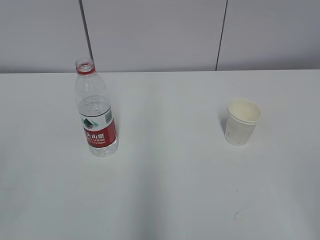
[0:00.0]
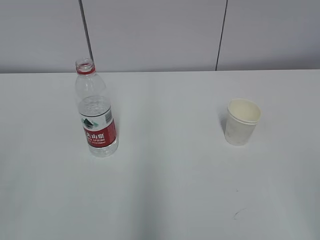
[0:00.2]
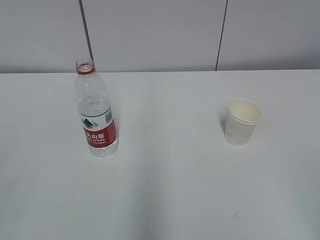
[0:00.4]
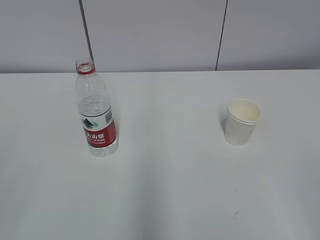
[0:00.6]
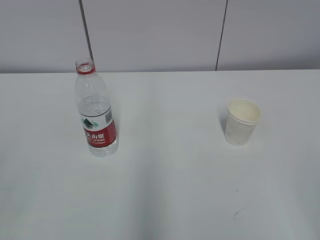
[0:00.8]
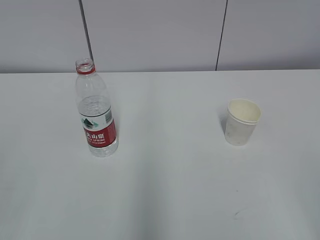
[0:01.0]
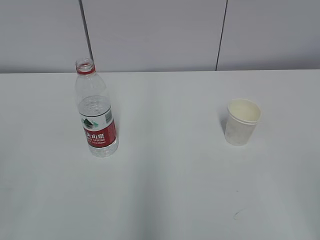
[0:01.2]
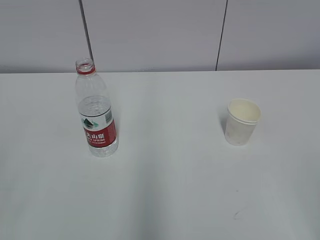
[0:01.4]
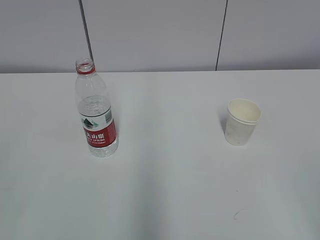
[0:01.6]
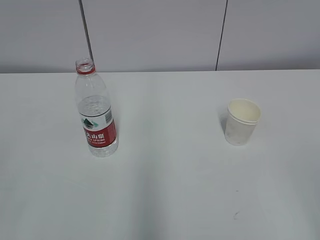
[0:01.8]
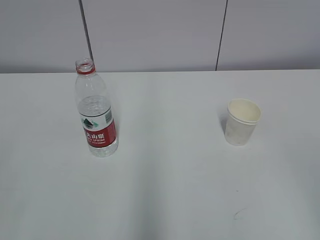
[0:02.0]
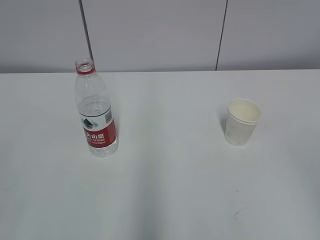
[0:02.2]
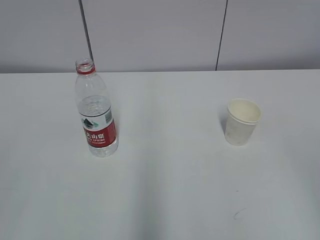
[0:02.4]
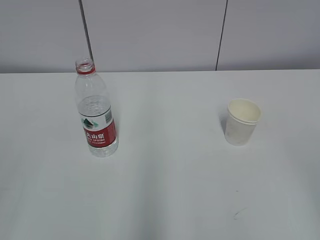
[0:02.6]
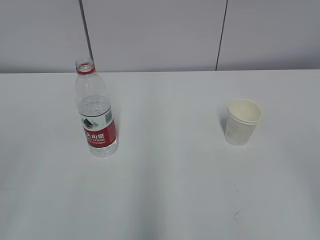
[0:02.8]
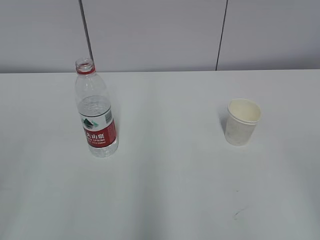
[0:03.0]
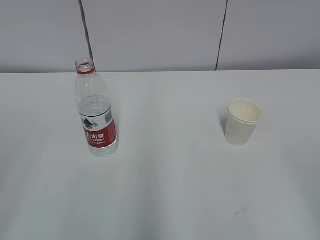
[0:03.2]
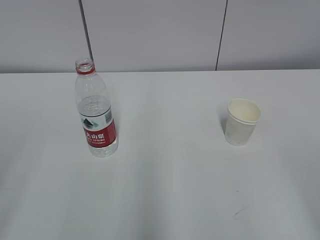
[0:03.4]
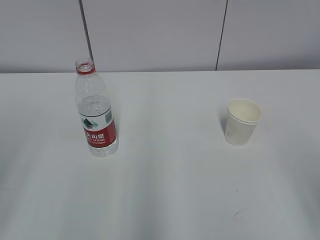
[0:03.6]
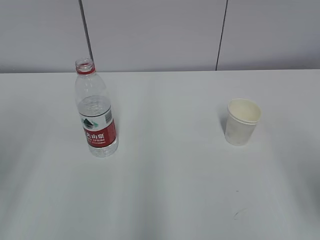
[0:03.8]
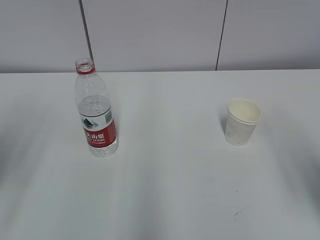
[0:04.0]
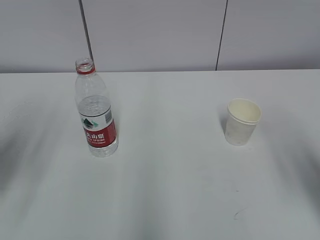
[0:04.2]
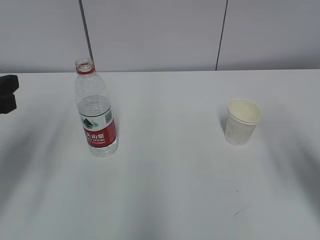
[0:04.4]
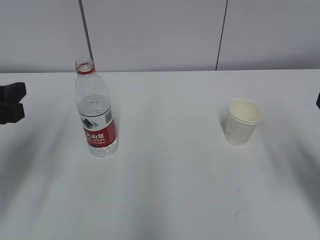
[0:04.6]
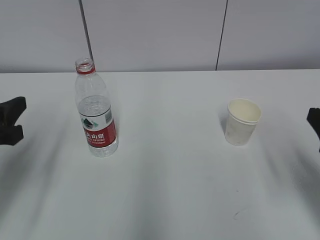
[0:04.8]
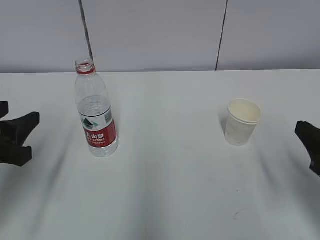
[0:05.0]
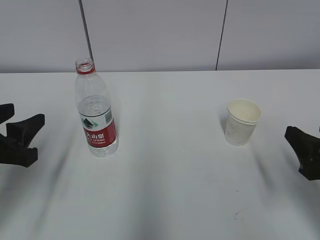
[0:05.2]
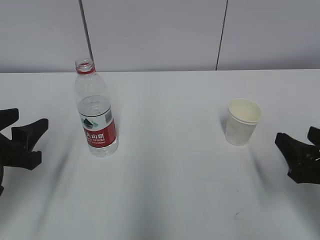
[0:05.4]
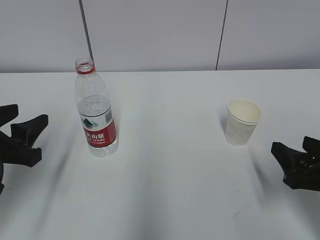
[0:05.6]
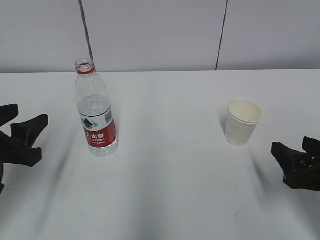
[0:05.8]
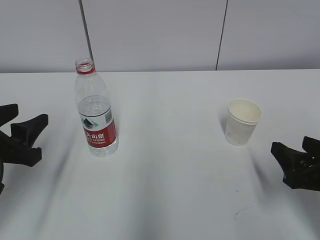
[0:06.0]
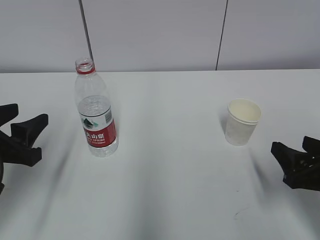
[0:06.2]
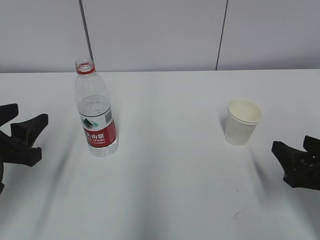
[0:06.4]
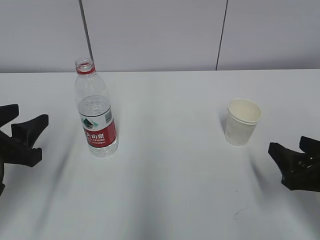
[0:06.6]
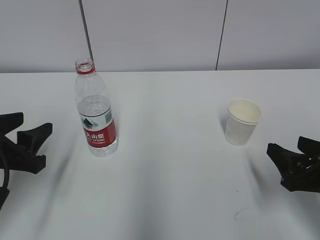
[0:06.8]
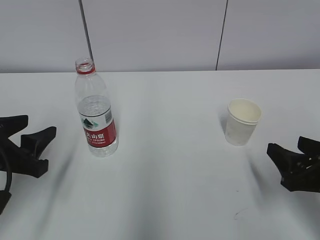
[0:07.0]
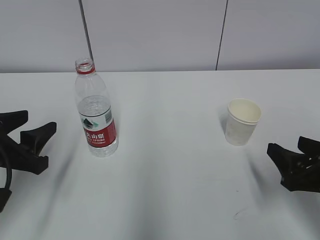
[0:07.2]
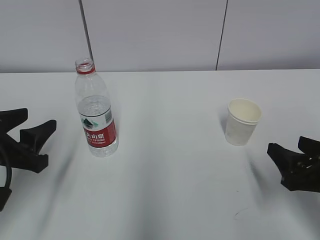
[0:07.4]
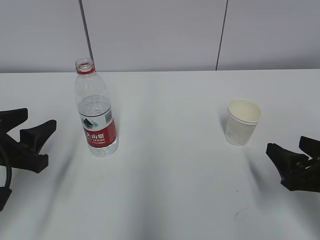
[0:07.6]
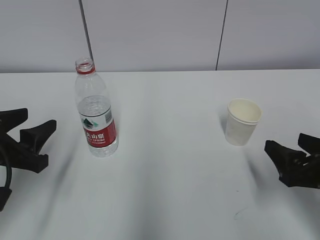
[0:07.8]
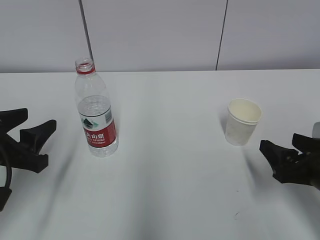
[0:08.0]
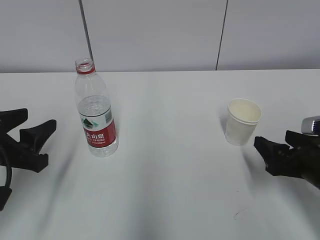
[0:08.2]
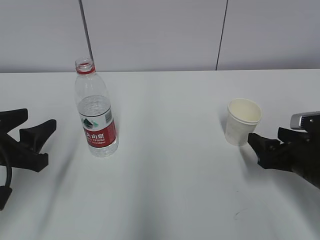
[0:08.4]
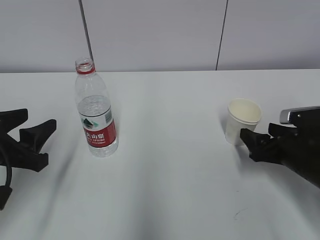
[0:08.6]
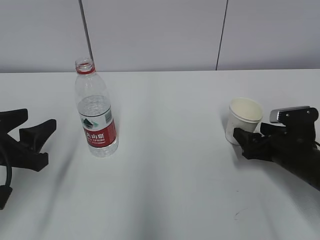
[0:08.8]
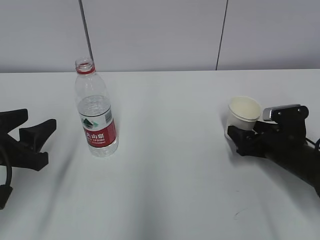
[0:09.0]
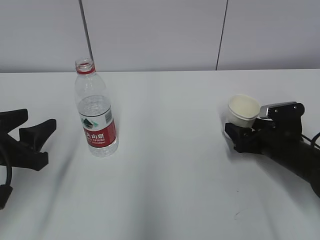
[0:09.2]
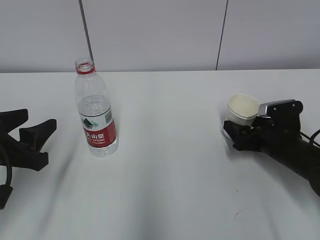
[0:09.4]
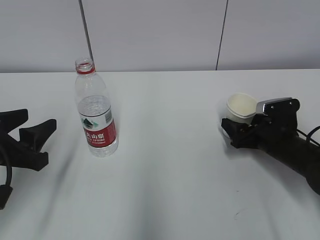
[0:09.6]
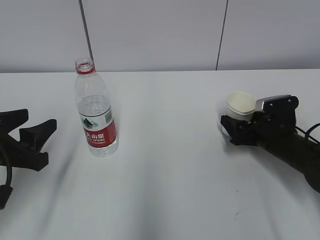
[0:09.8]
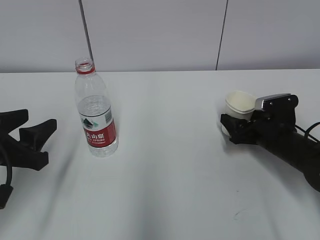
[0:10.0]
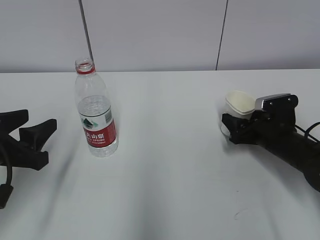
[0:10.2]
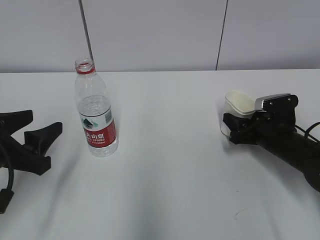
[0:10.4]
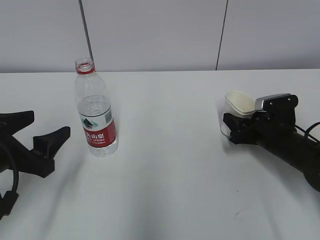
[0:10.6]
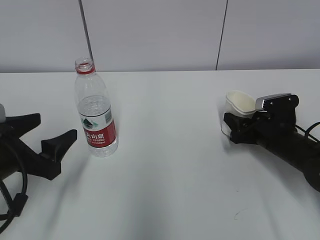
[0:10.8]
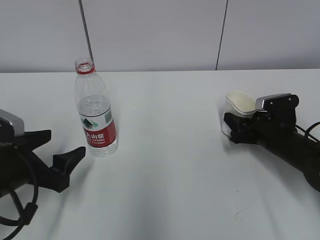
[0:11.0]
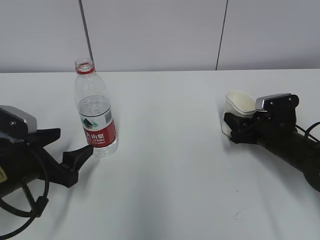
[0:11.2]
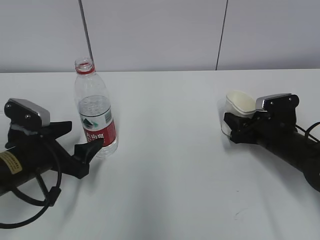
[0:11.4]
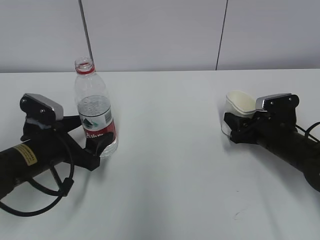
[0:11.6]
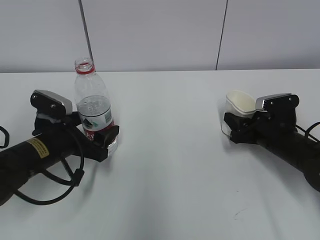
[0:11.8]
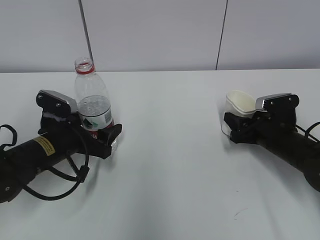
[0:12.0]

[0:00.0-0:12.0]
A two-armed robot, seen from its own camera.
Step, 0:00.0 to 0:10.8: Grab the water bottle with the left hand.
0:03.0 to 0:04.4: Both grippers travel together forward, some 15 cm.
0:04.4 to 0:06.0: The right gripper goes approximately 10 cm downward, while the left gripper is displaced downward by approximately 5 cm.
0:06.0 to 0:07.6: The grippers make only small movements.
0:07.6 to 0:09.0: The right gripper heads forward and downward, covering approximately 15 cm.
0:09.0 to 0:10.4: The right gripper closes its fingers.
0:10.4 to 0:12.0: The left gripper moves forward, downward and to the right, approximately 15 cm, and opens up.

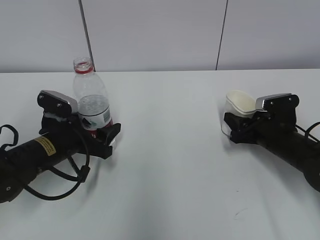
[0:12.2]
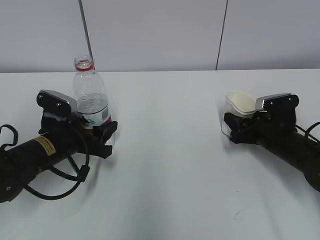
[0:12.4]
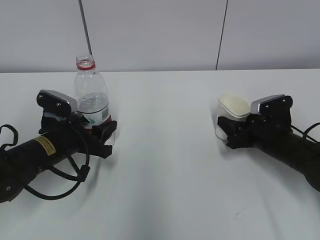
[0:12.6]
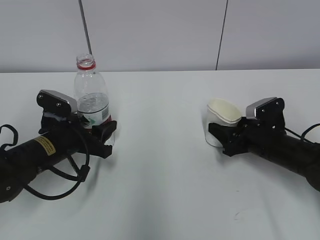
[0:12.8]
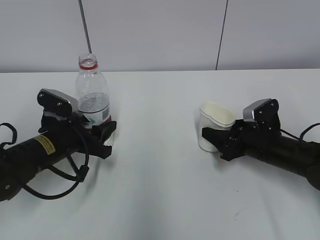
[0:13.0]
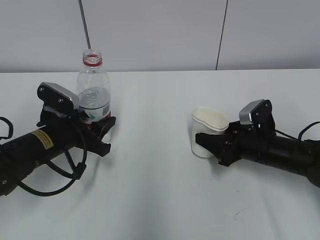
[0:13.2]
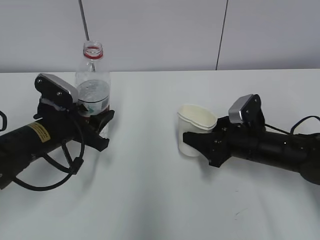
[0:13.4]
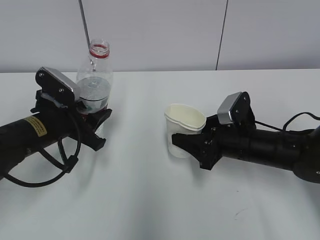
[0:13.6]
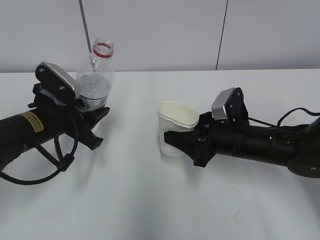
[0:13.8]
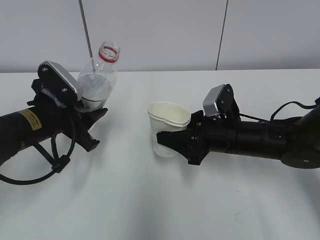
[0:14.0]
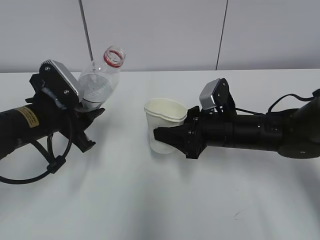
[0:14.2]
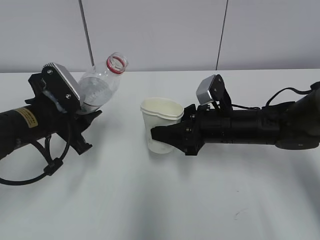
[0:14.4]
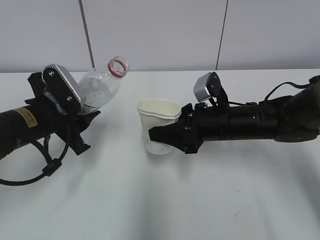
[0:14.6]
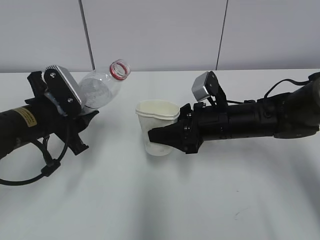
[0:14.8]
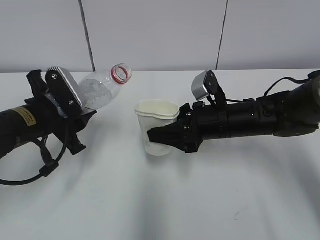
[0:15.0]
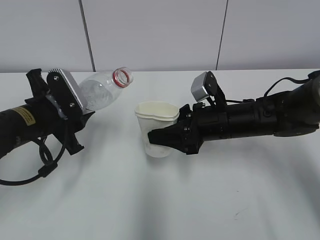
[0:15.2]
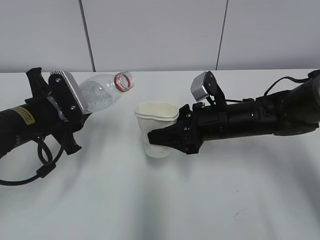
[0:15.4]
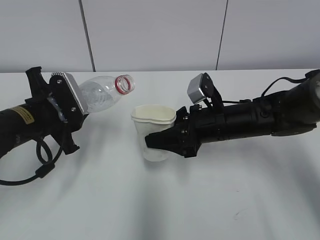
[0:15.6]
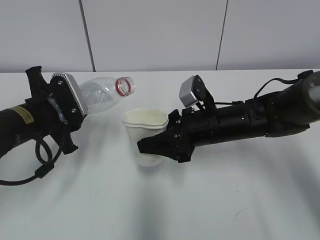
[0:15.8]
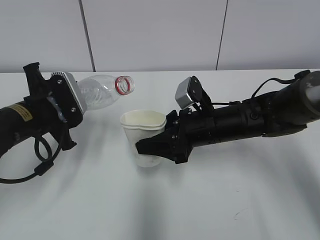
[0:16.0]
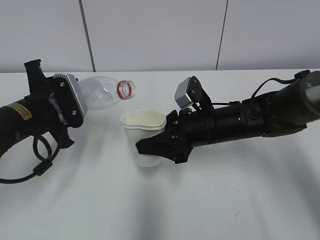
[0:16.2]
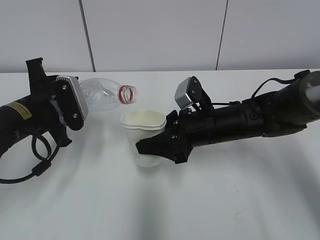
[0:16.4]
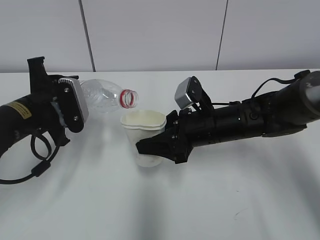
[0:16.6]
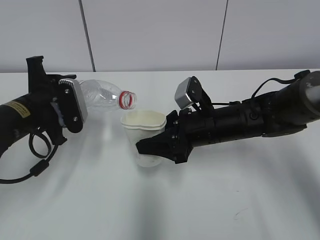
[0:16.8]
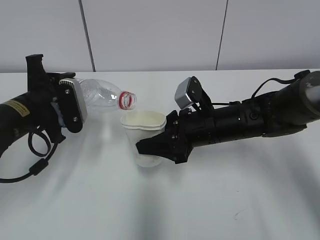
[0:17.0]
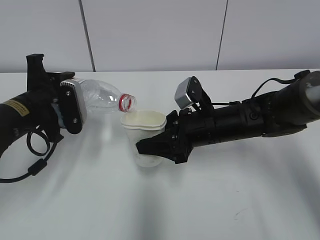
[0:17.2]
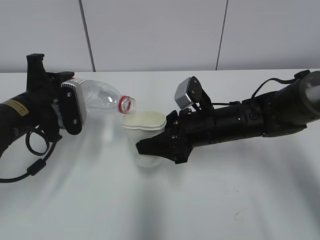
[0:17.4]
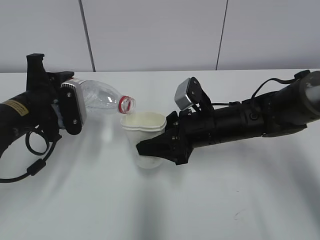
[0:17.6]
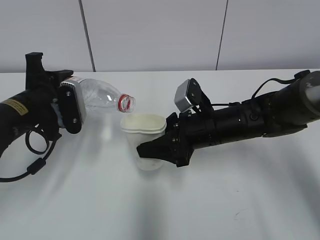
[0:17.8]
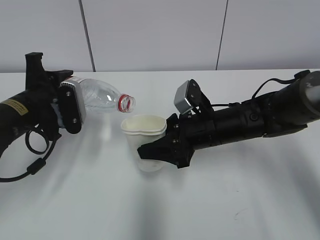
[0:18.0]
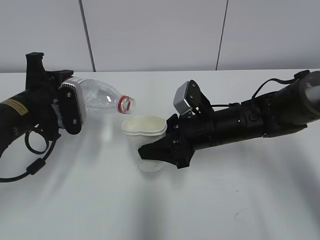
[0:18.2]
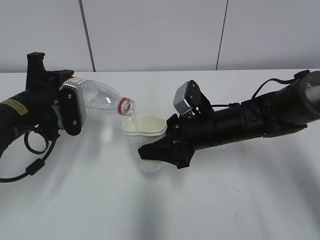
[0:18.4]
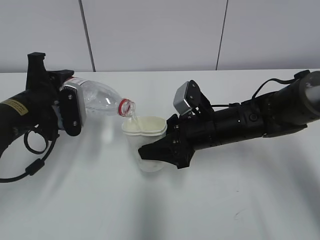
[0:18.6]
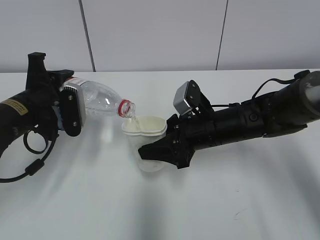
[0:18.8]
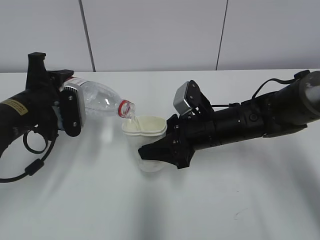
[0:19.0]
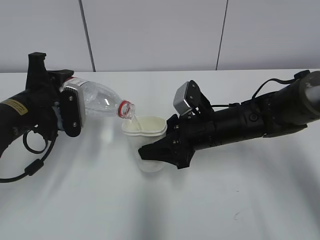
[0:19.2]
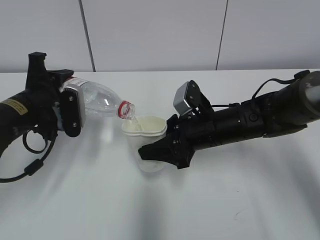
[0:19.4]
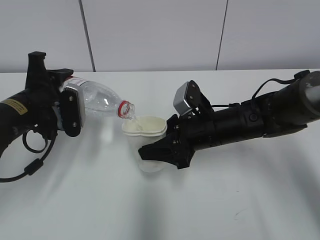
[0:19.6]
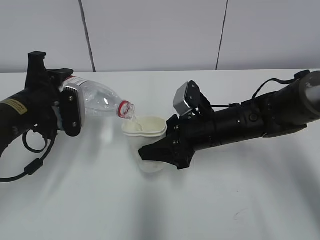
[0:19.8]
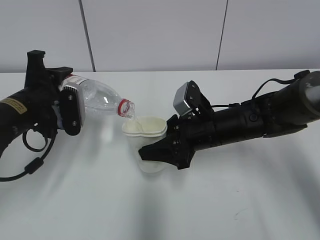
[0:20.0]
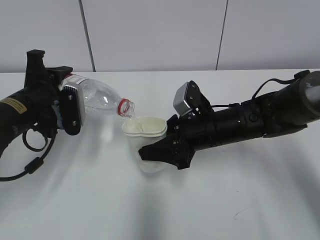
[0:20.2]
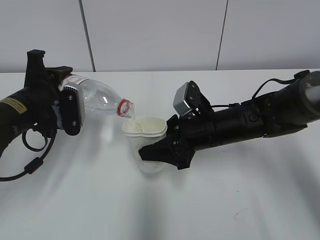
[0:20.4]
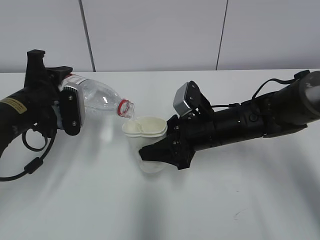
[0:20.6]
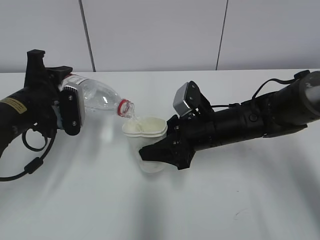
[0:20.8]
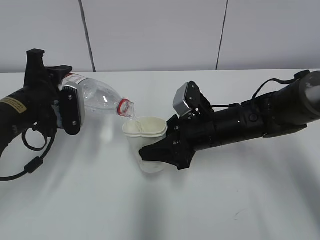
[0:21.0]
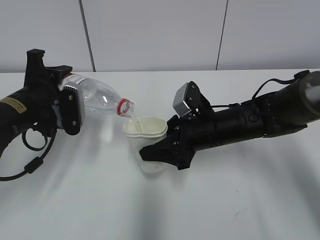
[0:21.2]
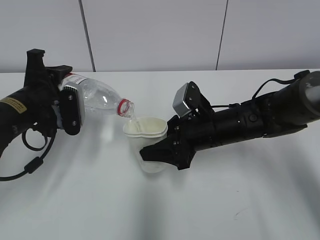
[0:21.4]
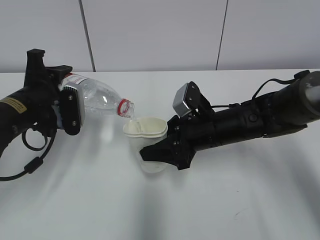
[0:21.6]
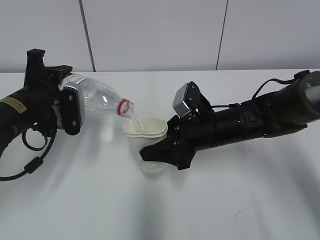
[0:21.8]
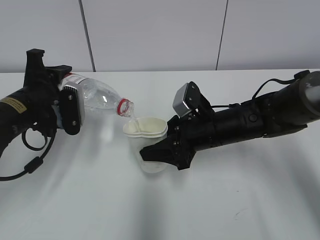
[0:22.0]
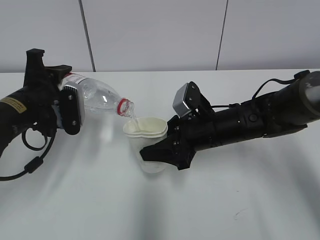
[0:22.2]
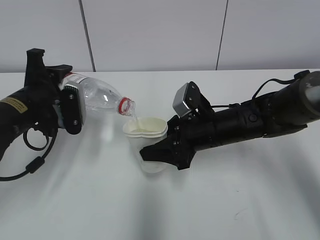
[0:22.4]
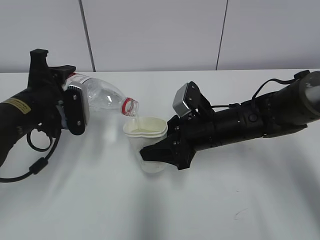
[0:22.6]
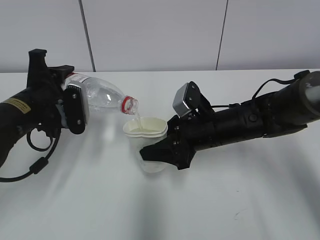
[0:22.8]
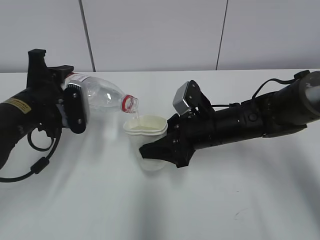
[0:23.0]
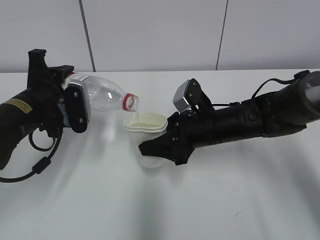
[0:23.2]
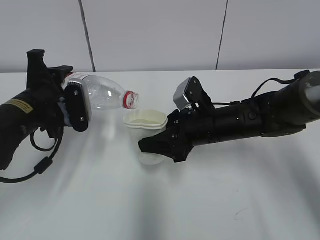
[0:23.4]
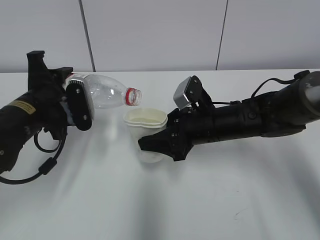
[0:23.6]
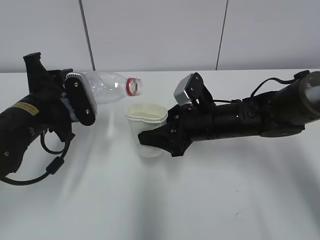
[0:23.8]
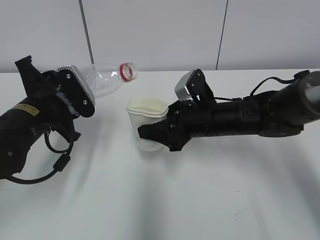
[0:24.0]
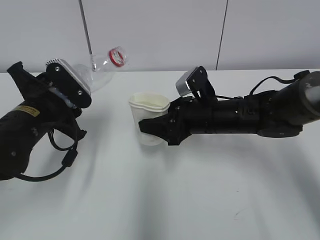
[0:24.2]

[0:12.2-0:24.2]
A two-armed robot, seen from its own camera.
Step, 0:12.2 to 0:15.2: Lift the paper cup with the right hand.
Step, 0:15.4 to 0:19.4: Fill water with the right hand.
Step, 0:15.4 to 0:19.4: Pour water with the left hand.
Step, 0:19.6 to 0:20.8: Collect water with the left hand.
0:12.2 to 0:13.8: The left gripper shifts some 5 cm upward, and closes; the right gripper moves to the left, approximately 10 cm.
0:16.6 to 0:18.2: The grippers move only a little.
0:18.2 to 0:19.8: The two grippers keep their place.
0:19.8 to 0:22.6: Both grippers stay about where they are.
